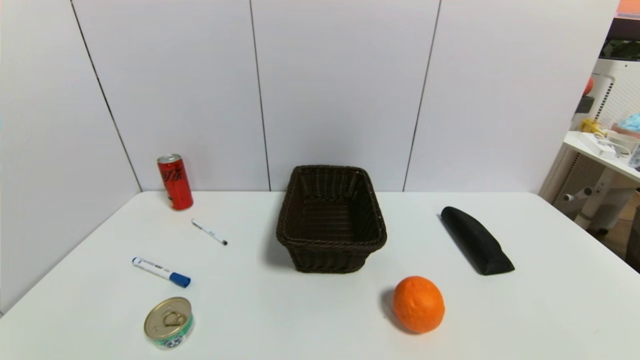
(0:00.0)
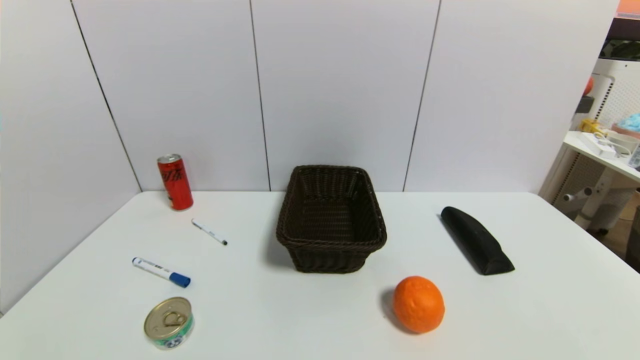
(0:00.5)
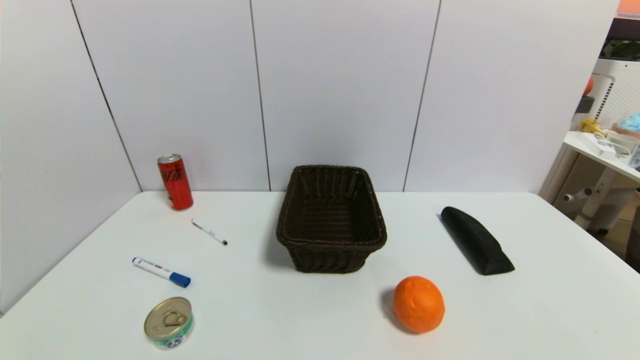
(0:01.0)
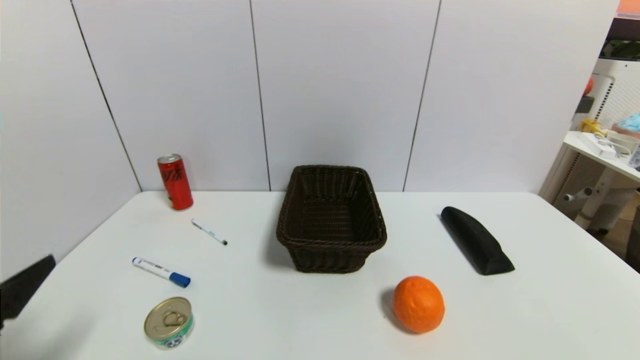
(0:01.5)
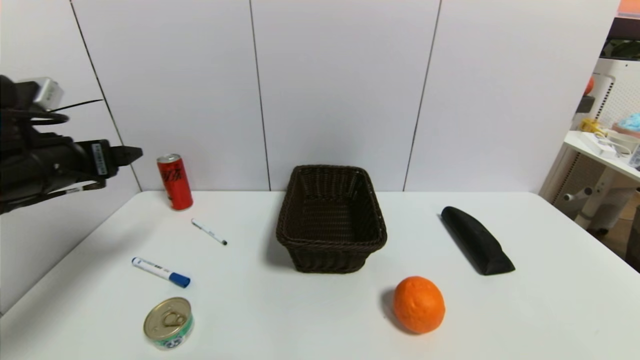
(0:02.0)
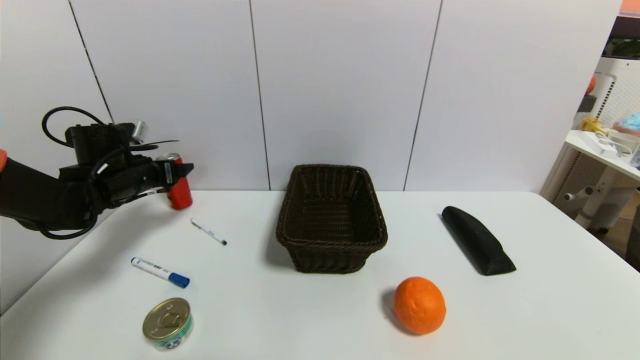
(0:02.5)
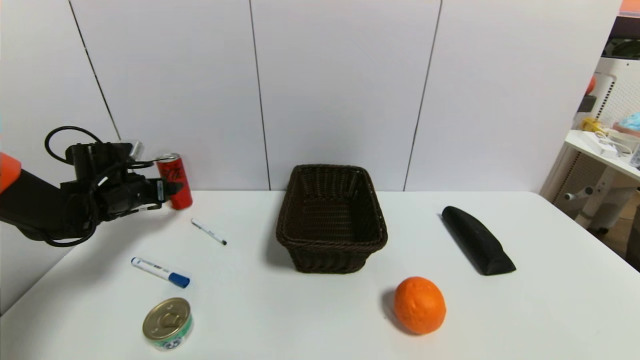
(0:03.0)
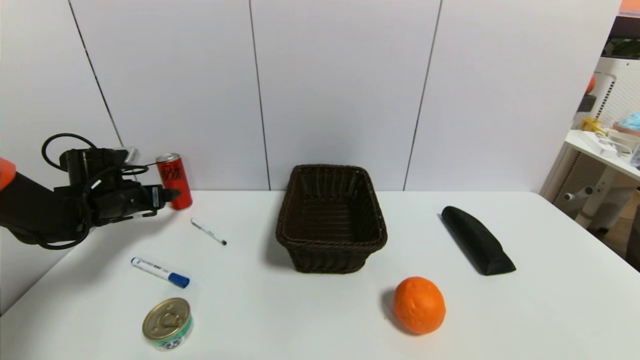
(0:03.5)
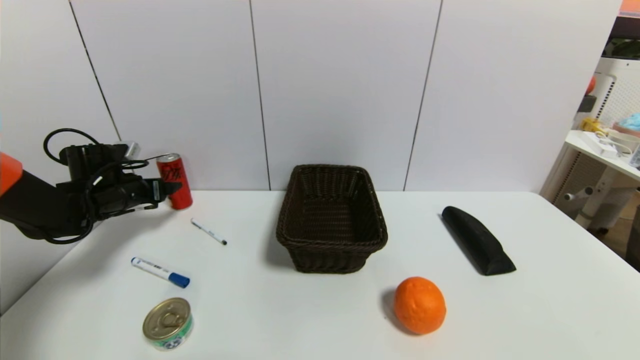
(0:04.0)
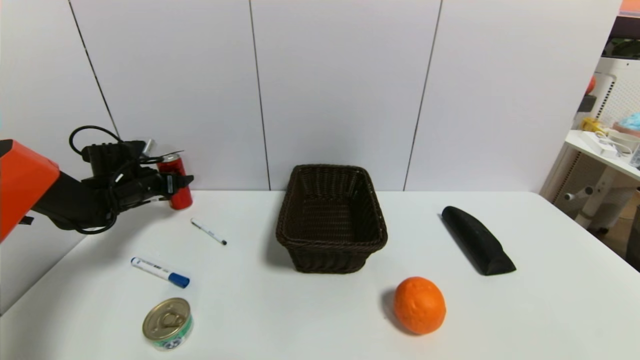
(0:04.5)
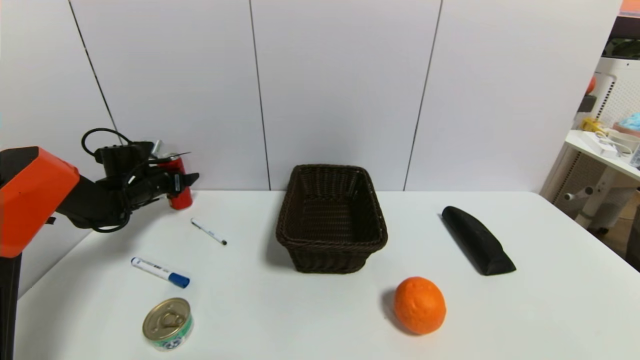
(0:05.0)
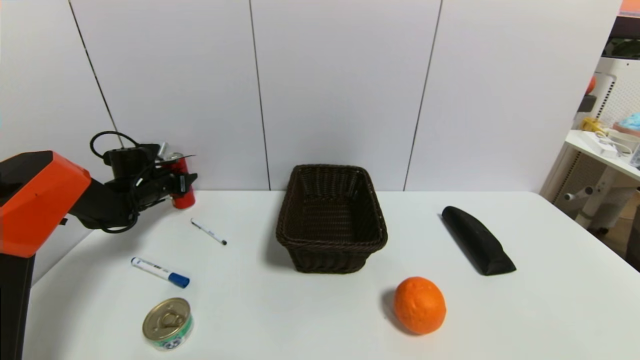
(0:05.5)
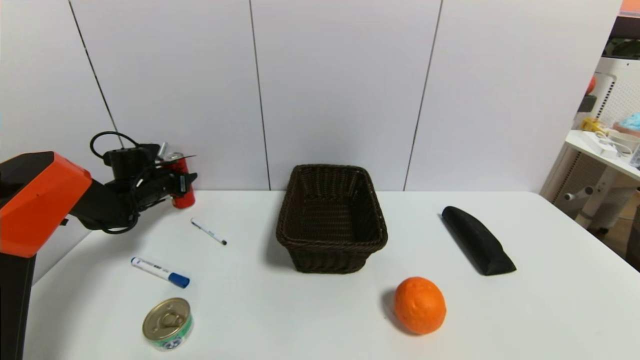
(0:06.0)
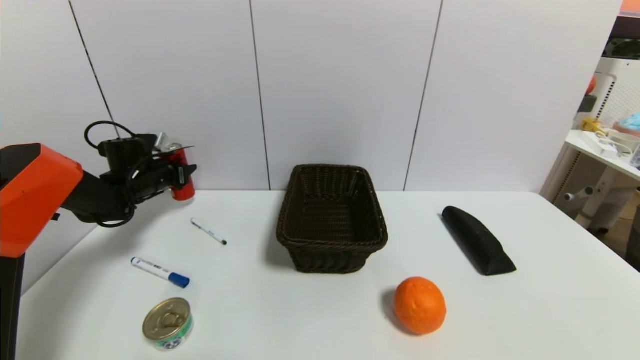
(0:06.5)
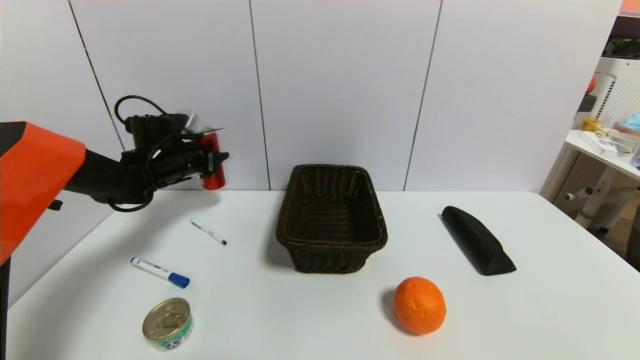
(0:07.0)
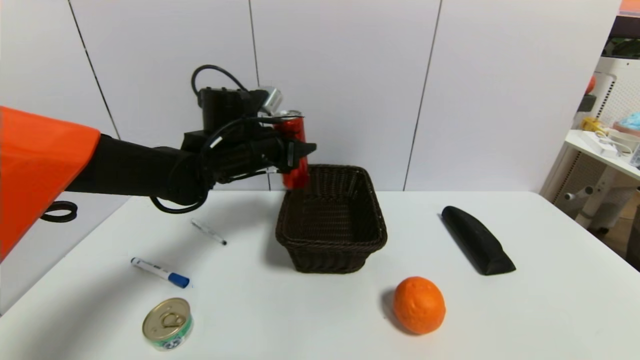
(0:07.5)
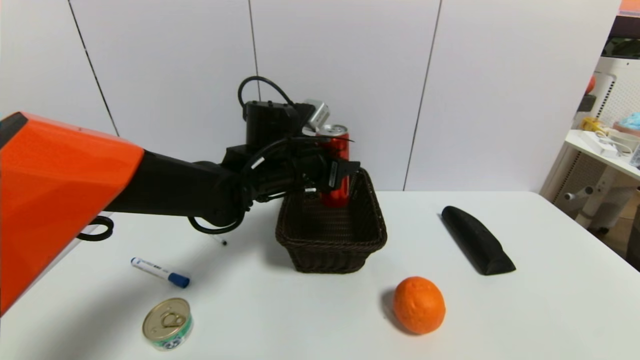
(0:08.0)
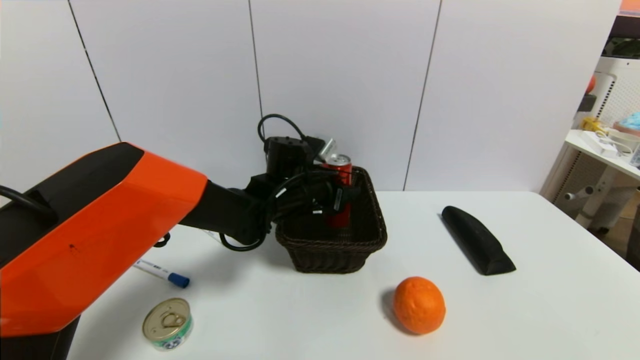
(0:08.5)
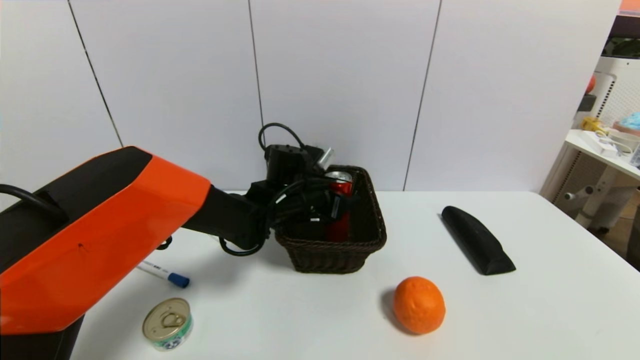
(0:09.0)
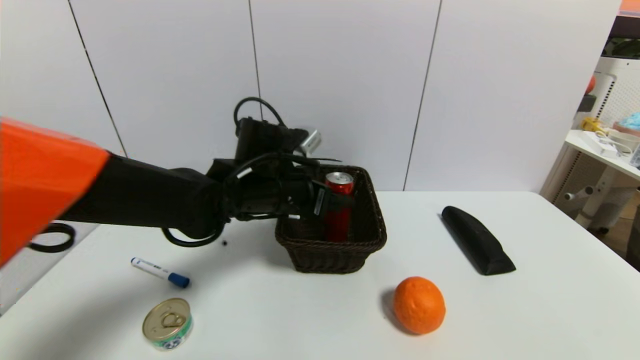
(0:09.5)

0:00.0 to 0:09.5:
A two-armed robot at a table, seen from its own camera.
Task of the whole recording: use a gripper to pick the target object and place on the brown basket.
Step, 0:00.0 to 0:05.5: Grasp the coke with the left gripper.
Step, 0:06.0 to 0:09.0: Place the coke into the basket with the left gripper.
0:00.0 to 0:02.0: The left gripper moves forward and upward, about 35 cm.
0:02.0 to 0:04.0: The left gripper heads forward, downward and to the left, covering some 20 cm.
0:04.0 to 0:05.5: The left gripper is displaced forward by some 10 cm, and closes.
0:05.5 to 0:07.5: The left gripper heads to the right and upward, covering roughly 30 cm.
0:07.5 to 0:09.5: The left gripper heads backward, covering about 5 cm, reaches approximately 10 cm downward, then returns, and opens its fingers.

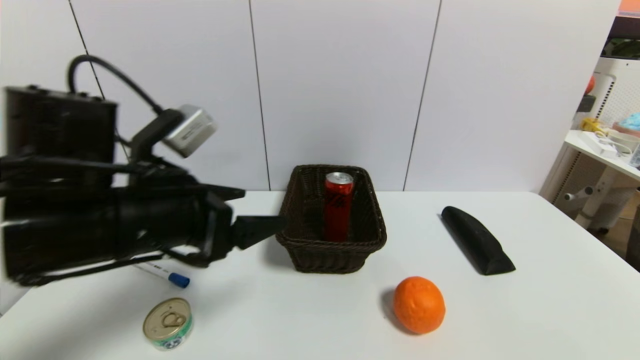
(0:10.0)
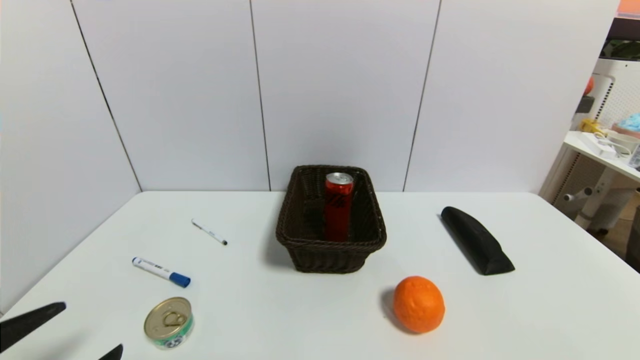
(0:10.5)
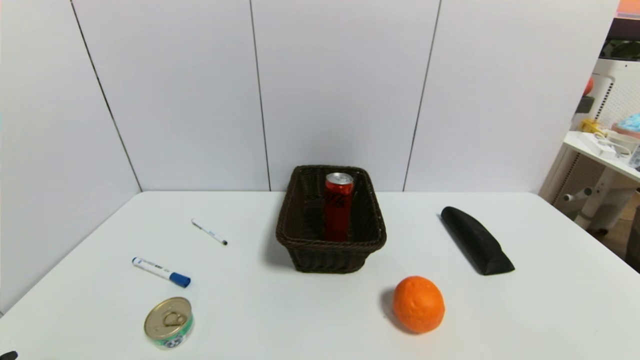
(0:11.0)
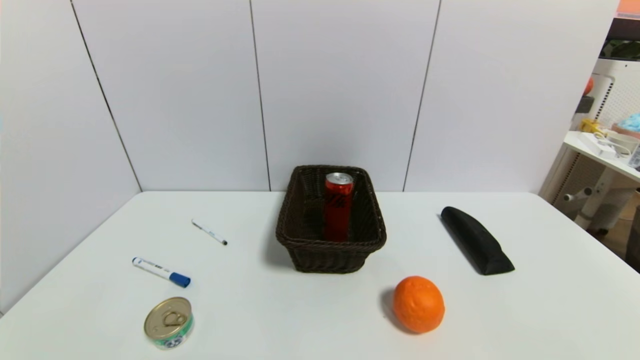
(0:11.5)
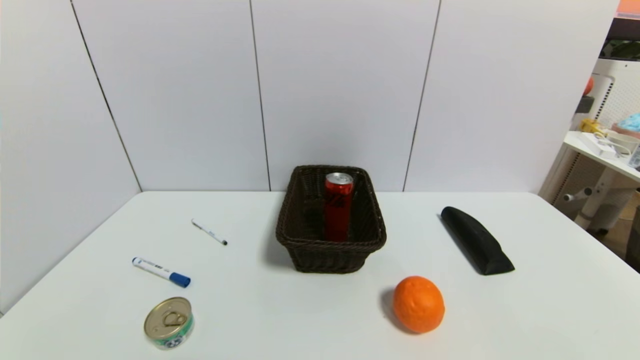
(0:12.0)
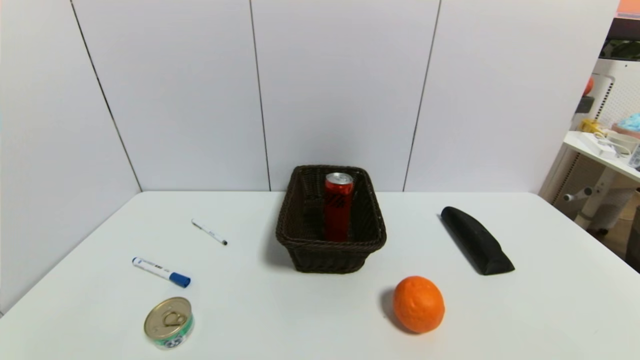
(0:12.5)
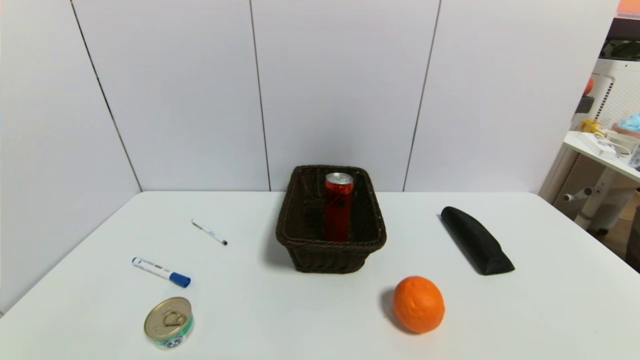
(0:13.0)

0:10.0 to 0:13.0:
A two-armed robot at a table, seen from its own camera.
Task of the whole recording: use a gripper to pick the target object and place on the brown basket.
0:10.0 to 0:11.5: The left gripper travels backward, downward and to the left by roughly 30 cm.
0:11.5 to 0:13.0: Both grippers stay put.
